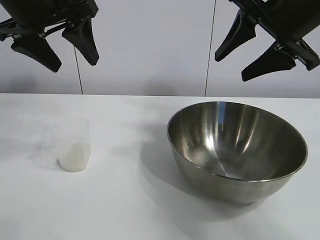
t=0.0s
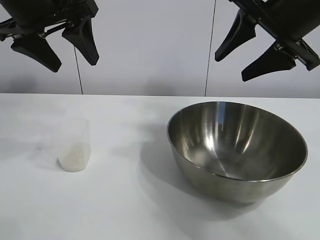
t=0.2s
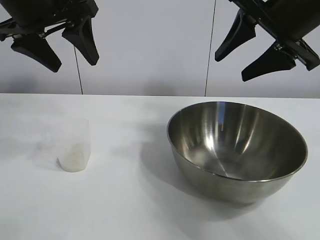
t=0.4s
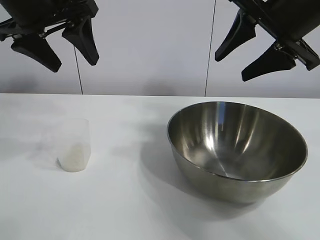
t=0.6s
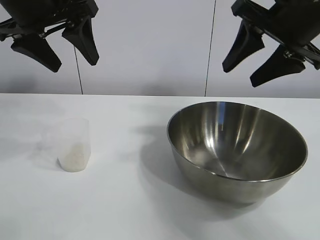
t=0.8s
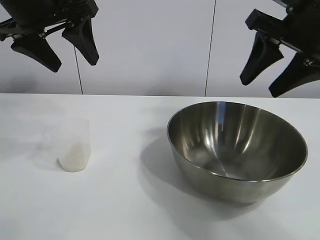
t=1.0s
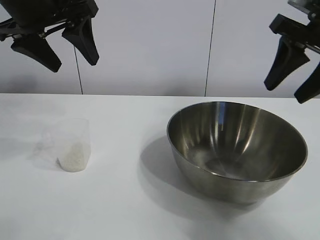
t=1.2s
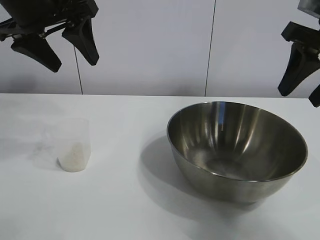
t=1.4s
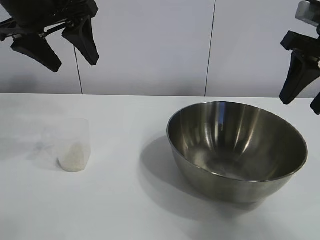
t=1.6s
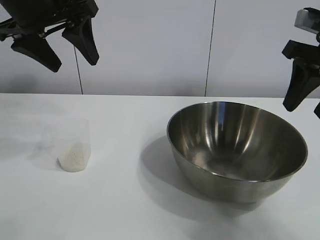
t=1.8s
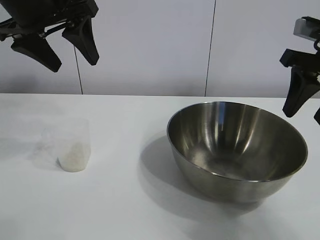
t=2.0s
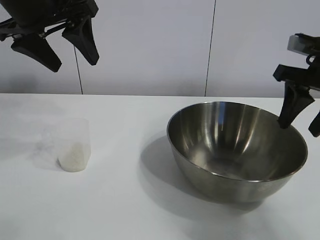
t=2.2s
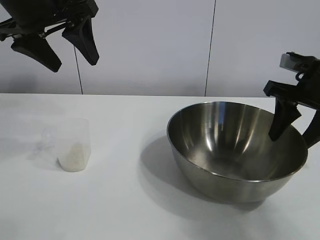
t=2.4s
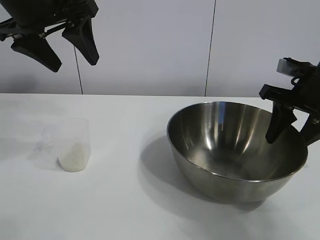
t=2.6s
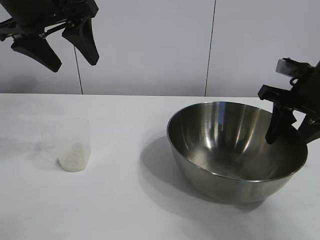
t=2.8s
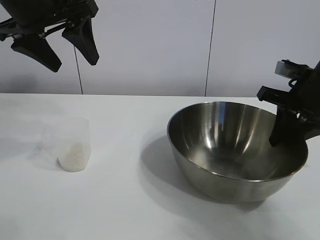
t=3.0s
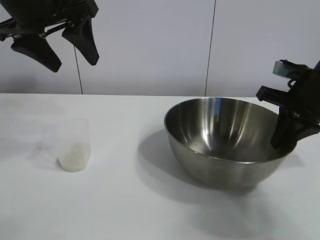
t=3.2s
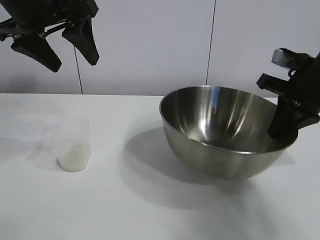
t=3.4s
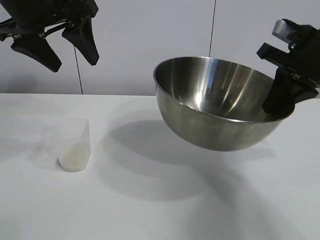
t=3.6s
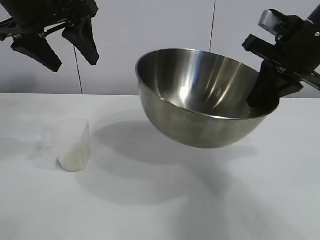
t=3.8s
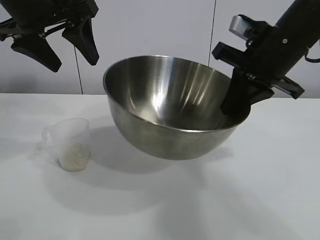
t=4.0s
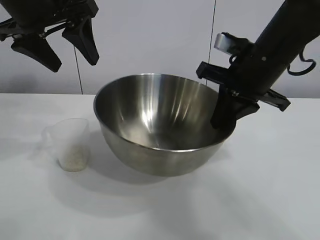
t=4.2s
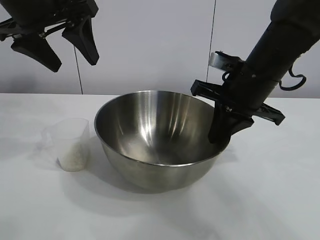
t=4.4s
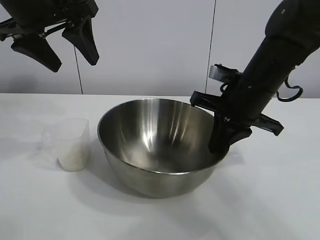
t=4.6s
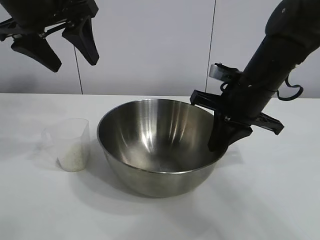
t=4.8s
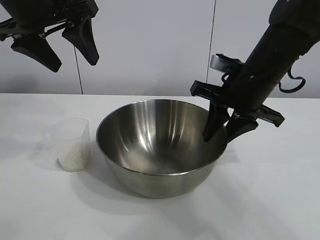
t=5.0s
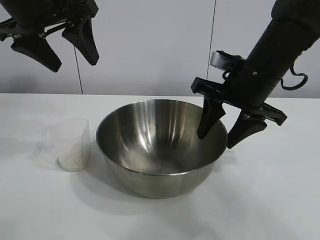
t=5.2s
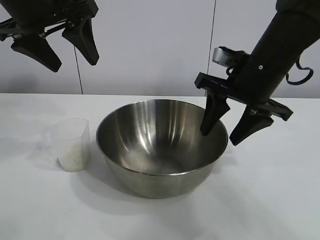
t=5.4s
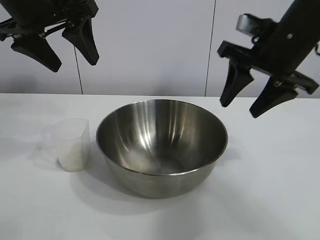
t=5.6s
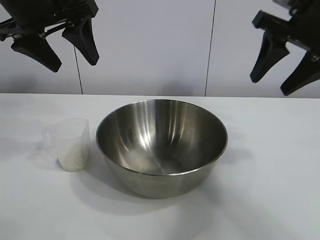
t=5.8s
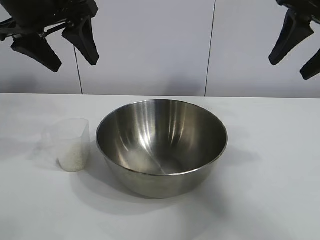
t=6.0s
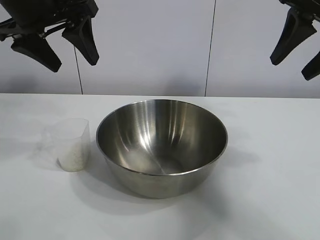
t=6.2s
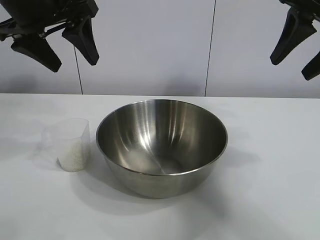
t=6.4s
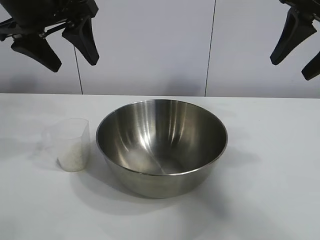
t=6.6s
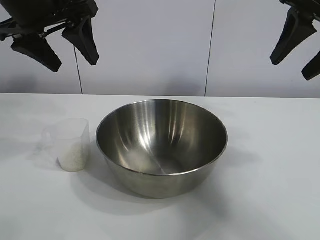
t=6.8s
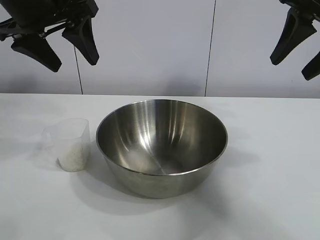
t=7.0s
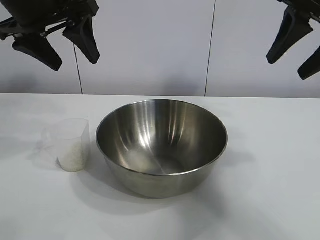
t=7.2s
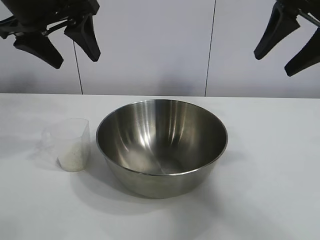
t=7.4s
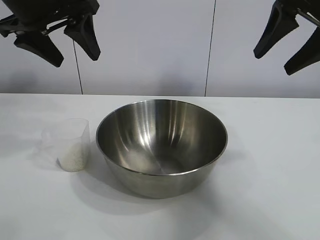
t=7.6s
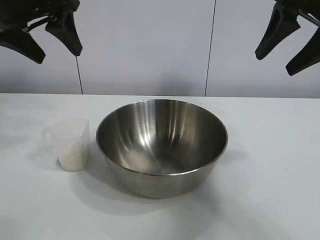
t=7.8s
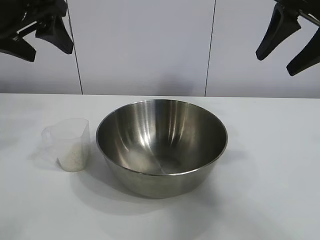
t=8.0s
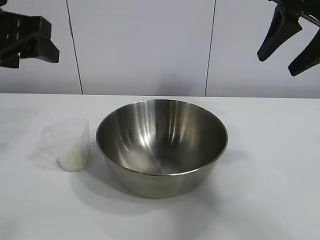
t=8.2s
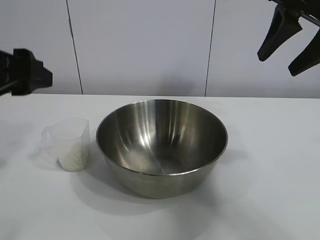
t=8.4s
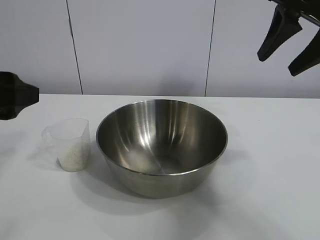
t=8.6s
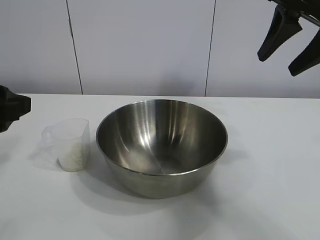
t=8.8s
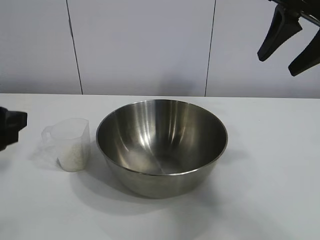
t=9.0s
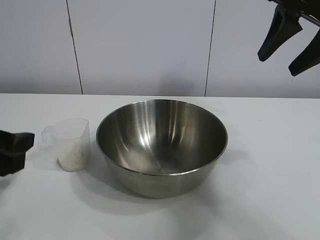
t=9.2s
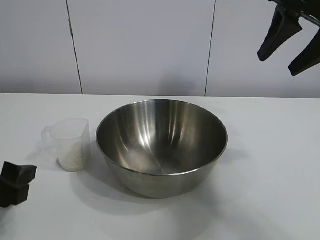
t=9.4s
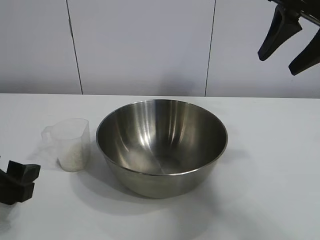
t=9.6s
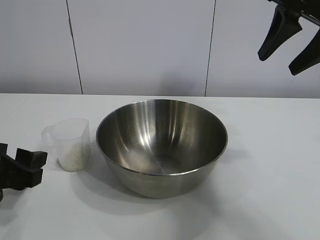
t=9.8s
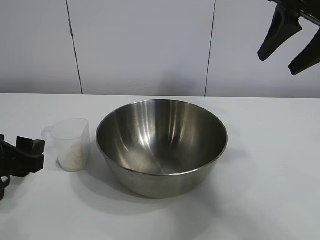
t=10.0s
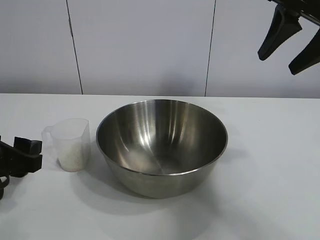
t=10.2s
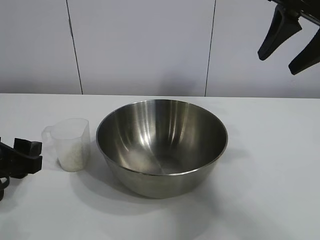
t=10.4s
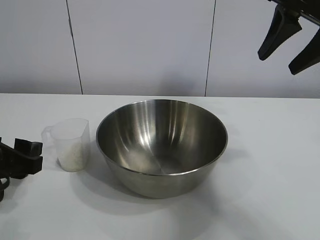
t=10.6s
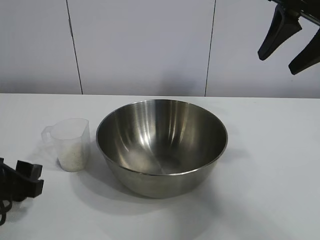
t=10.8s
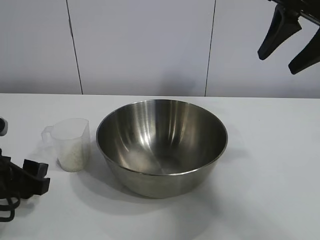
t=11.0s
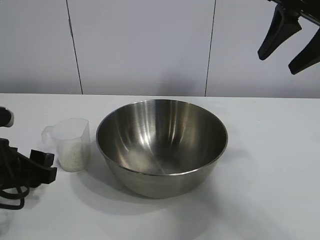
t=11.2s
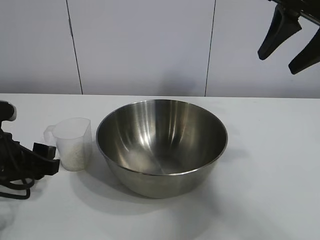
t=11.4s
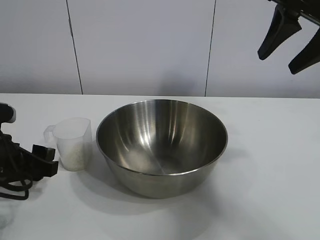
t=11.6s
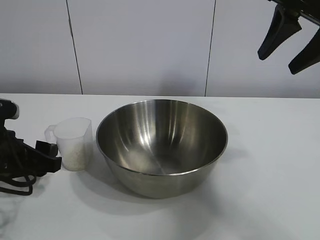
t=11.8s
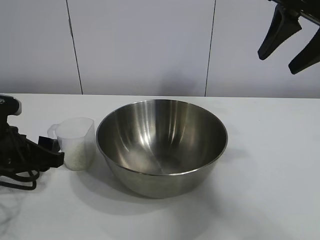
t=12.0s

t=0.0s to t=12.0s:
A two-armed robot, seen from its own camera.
Task of the whole recording: the right gripper grasp the rice container and place it in the center of the table, the left gripper grasp the rice scoop and pour the rice into the rice container.
Step, t=0.8s to t=5.2s: Move the bowl in the center of view with right gripper.

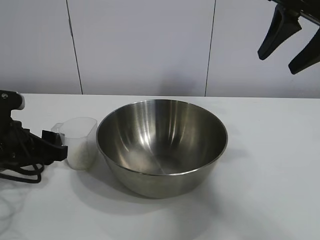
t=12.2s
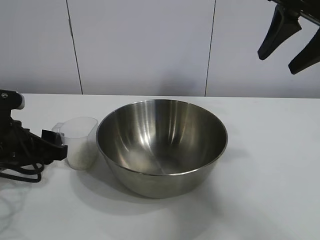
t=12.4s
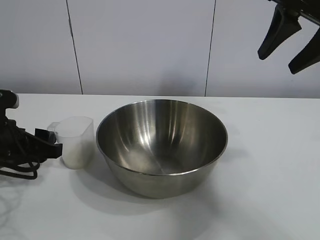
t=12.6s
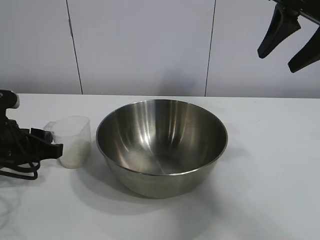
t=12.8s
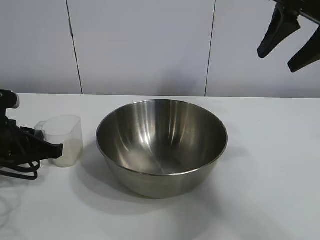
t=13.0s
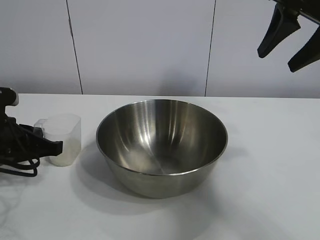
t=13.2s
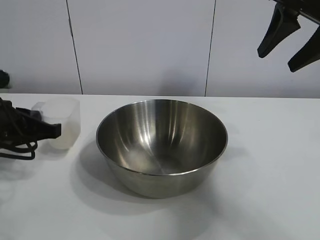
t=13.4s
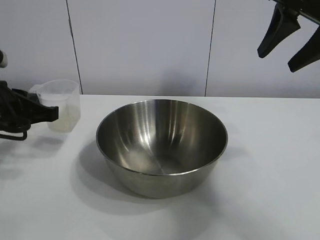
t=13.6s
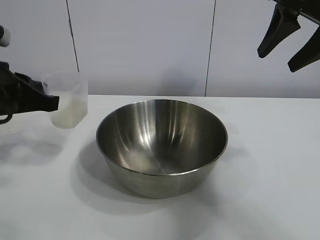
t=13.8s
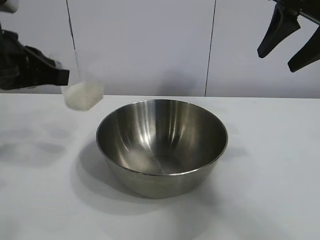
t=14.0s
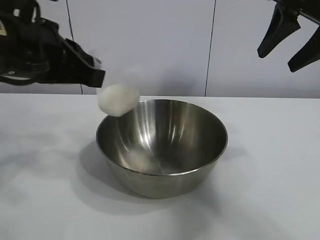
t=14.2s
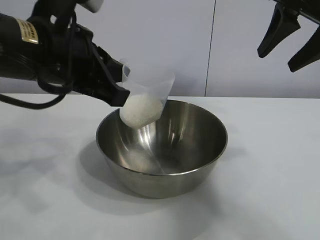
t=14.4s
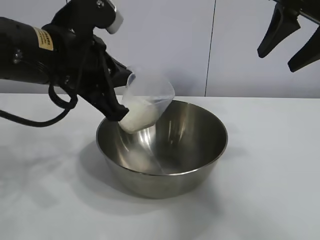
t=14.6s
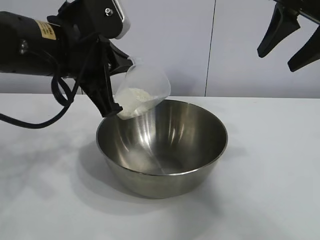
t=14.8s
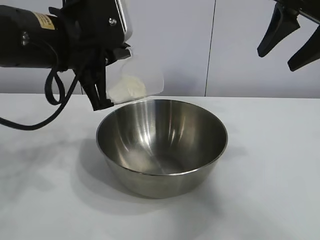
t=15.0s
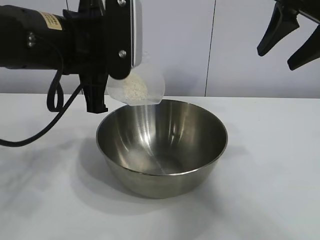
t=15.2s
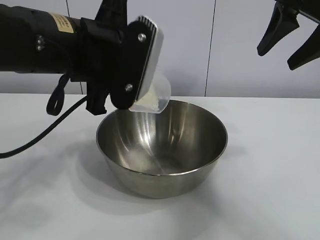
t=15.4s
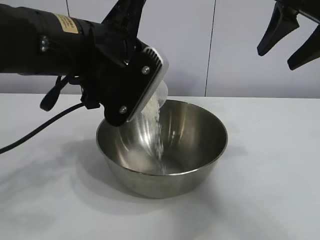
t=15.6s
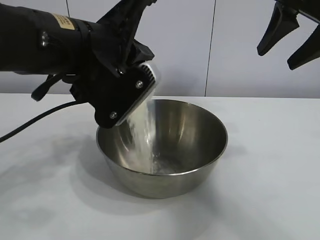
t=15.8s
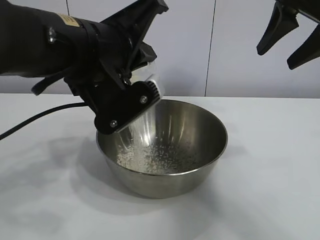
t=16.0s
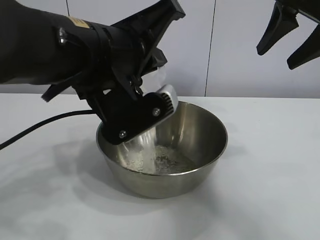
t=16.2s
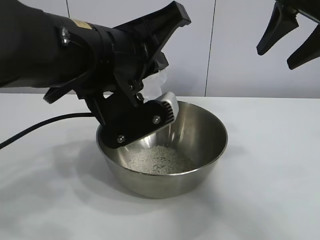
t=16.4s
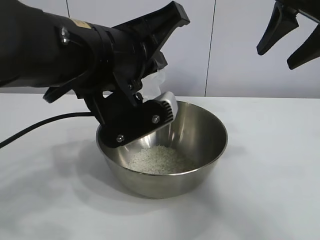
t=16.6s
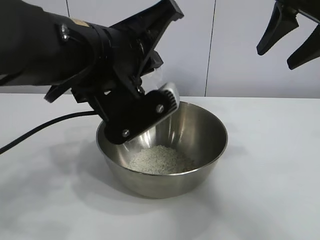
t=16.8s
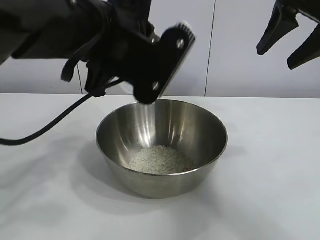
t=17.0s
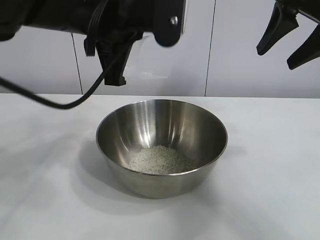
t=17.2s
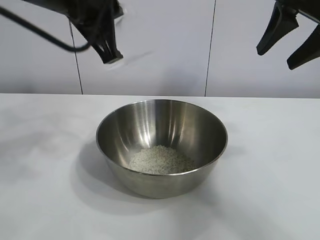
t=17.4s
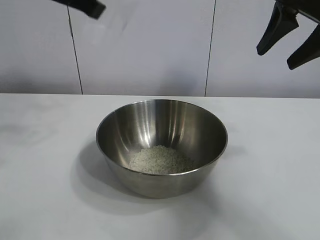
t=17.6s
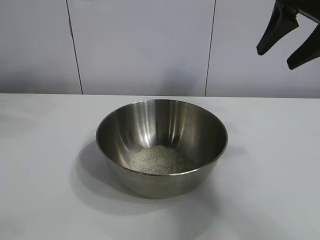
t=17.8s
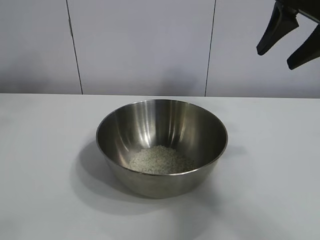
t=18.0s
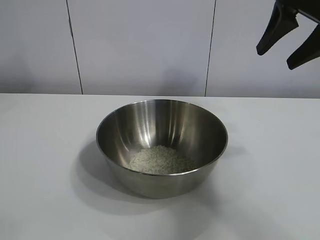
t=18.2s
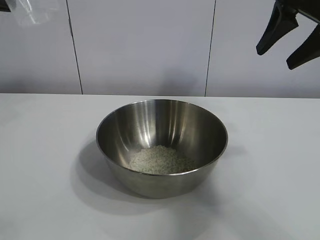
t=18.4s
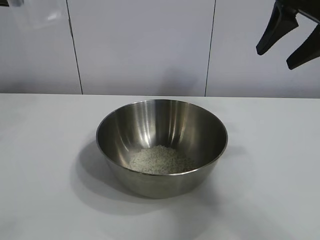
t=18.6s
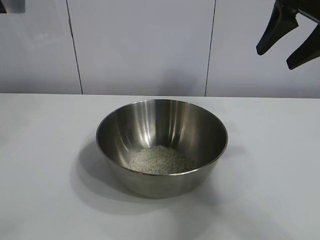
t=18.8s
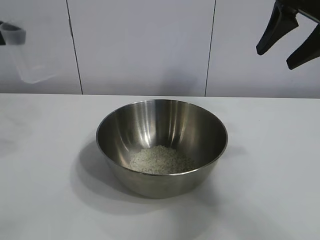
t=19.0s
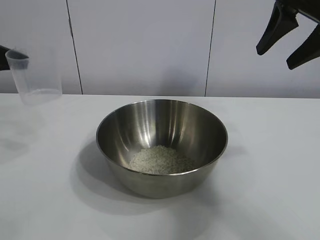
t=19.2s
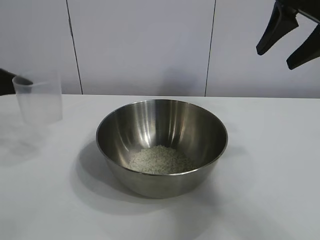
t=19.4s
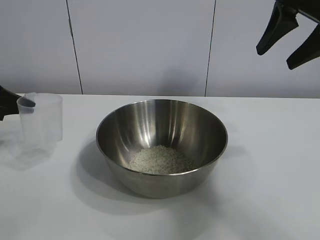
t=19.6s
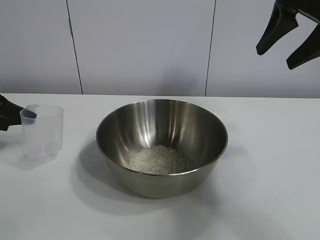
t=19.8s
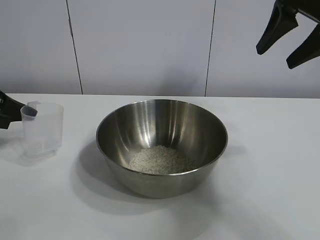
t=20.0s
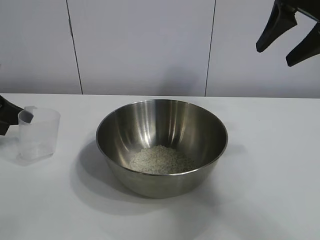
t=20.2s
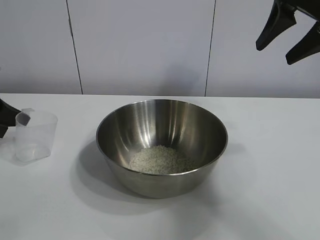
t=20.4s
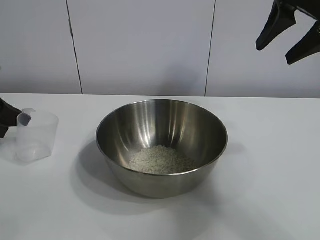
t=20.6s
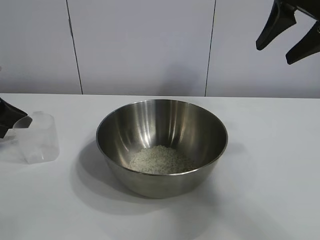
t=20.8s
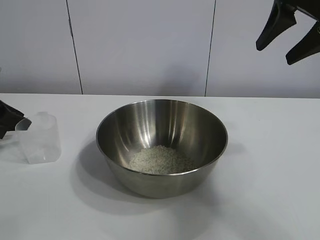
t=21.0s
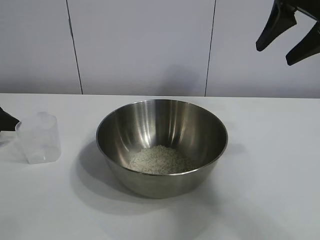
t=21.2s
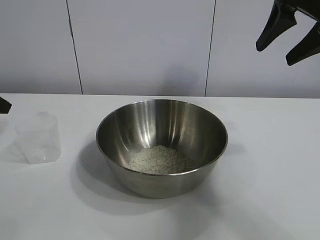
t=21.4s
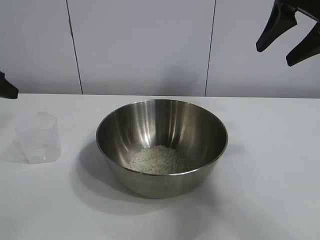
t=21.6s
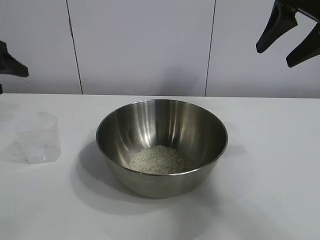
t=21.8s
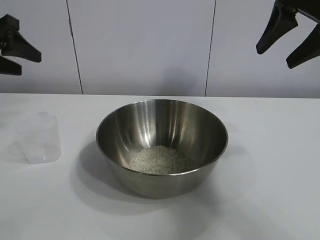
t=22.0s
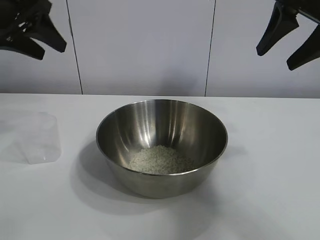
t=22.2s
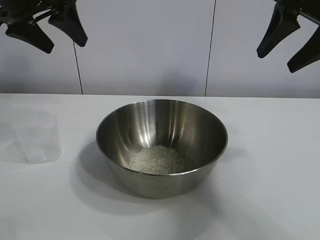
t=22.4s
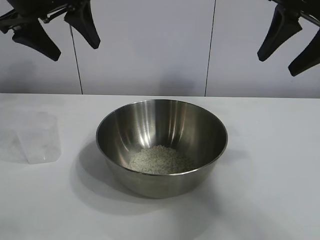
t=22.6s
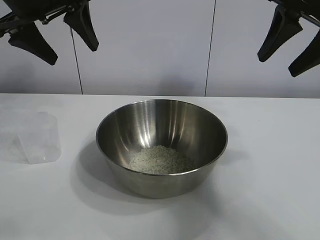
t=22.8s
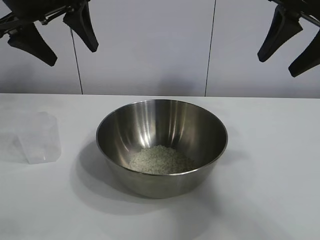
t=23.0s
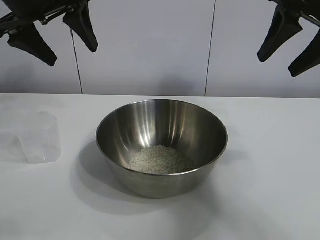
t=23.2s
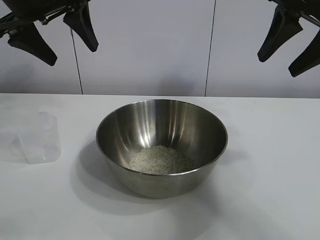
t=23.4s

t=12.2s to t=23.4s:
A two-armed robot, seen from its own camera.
Task of the whole recording: the right gripper grasp the rice container and place it in the center of the table, the left gripper grasp the rice scoop and pour the rice into the rice container.
Step, t=13.4s to t=16.6s: Pour the rice from the cup into the bowl with the left gripper.
Step, t=17.0s to t=20.8s: Place the cup on the table with the left gripper.
